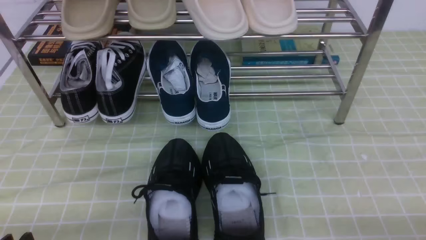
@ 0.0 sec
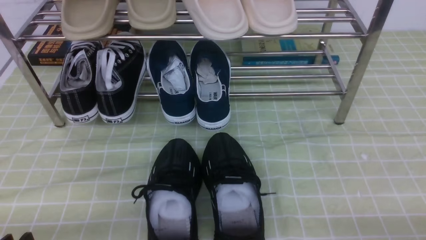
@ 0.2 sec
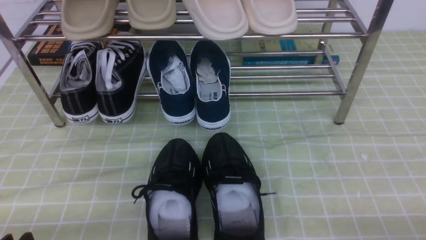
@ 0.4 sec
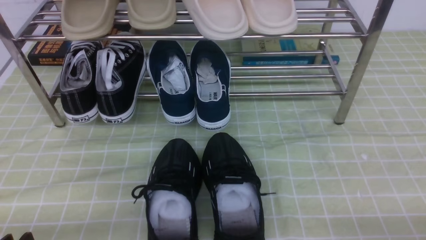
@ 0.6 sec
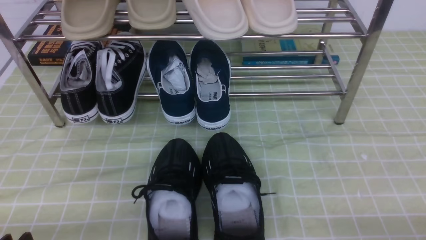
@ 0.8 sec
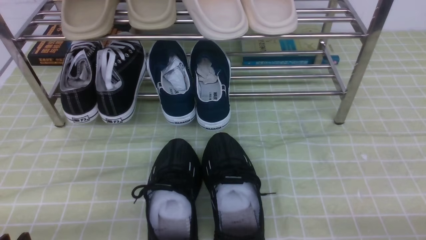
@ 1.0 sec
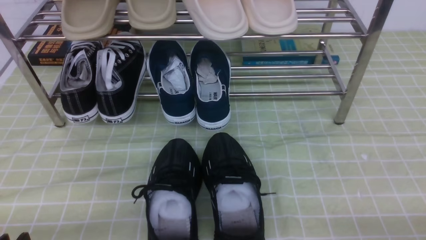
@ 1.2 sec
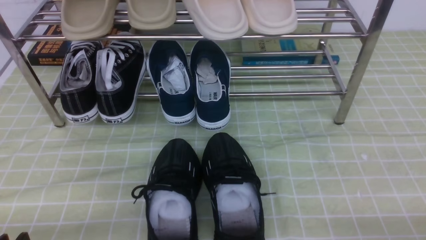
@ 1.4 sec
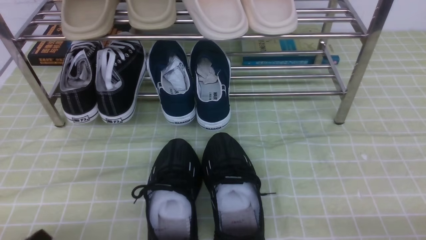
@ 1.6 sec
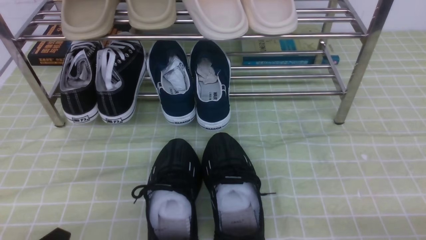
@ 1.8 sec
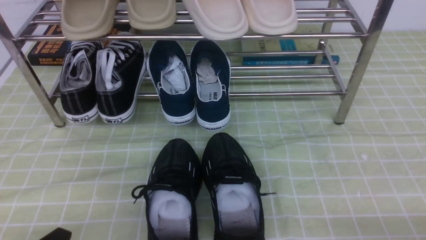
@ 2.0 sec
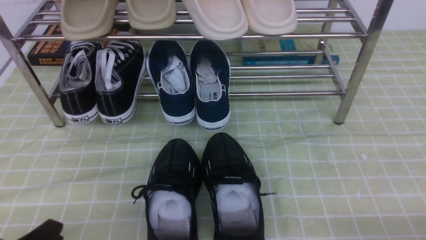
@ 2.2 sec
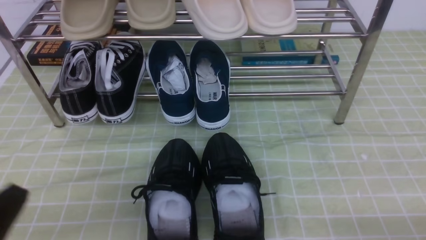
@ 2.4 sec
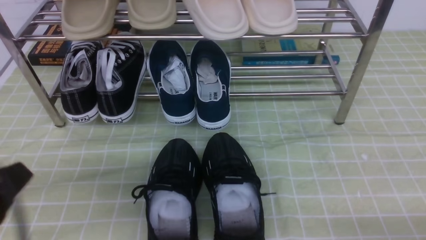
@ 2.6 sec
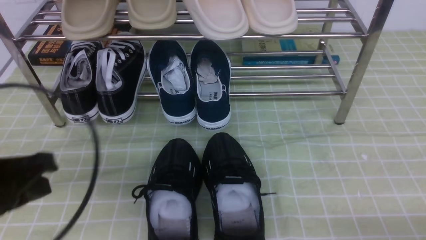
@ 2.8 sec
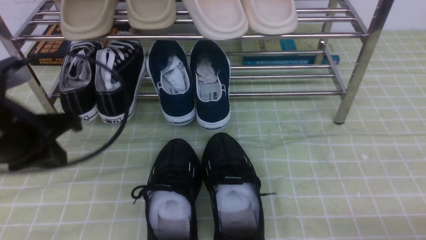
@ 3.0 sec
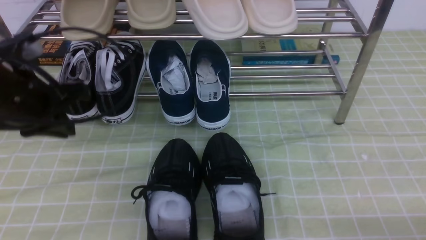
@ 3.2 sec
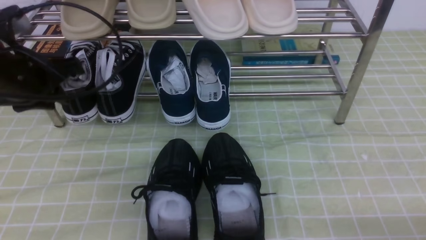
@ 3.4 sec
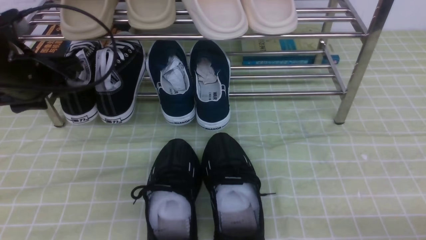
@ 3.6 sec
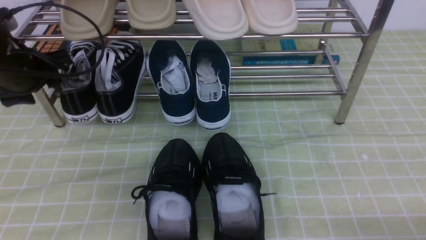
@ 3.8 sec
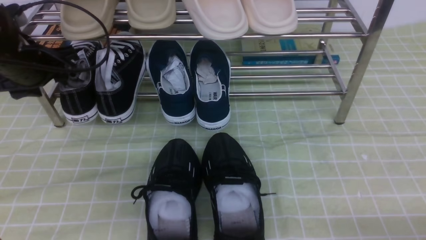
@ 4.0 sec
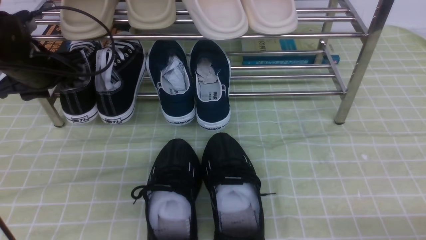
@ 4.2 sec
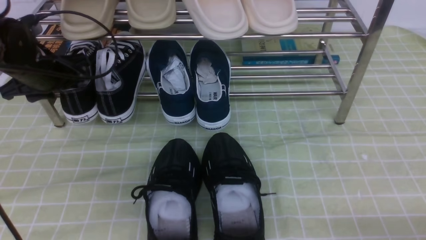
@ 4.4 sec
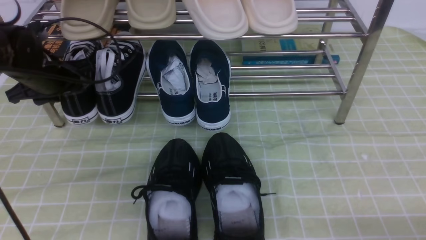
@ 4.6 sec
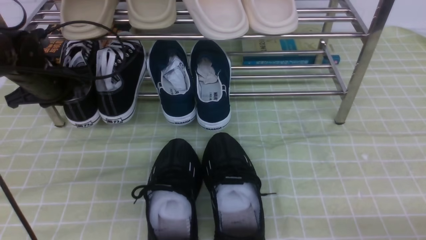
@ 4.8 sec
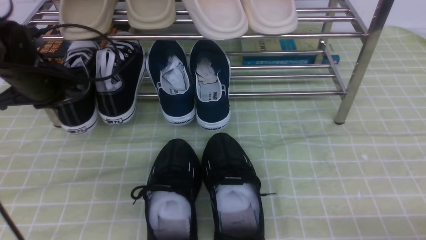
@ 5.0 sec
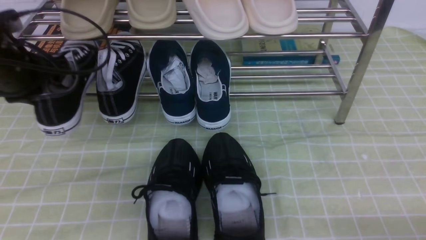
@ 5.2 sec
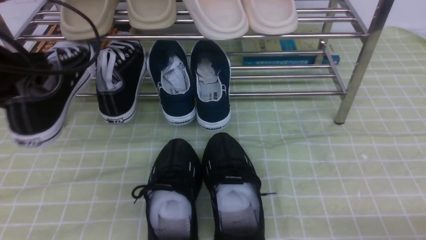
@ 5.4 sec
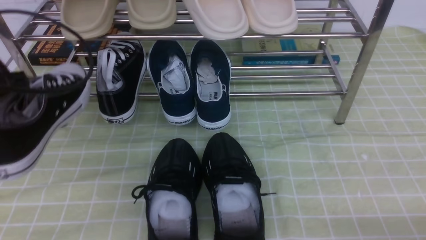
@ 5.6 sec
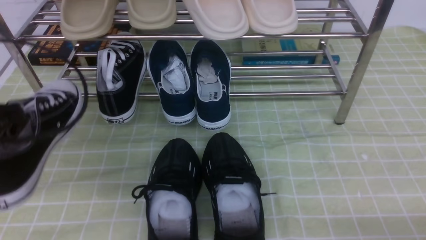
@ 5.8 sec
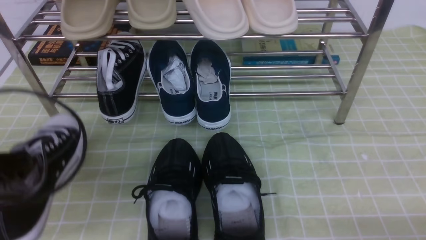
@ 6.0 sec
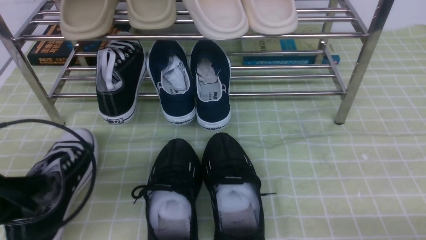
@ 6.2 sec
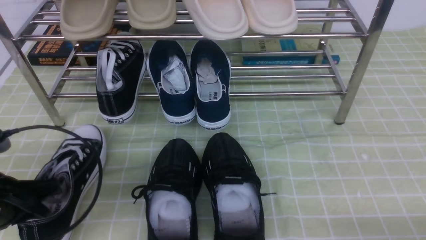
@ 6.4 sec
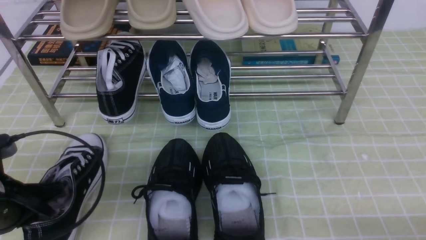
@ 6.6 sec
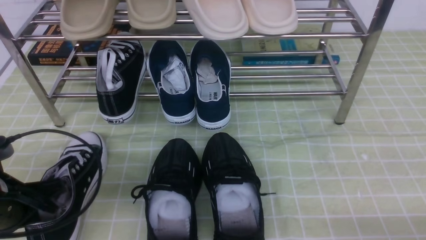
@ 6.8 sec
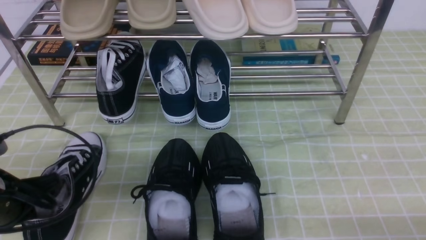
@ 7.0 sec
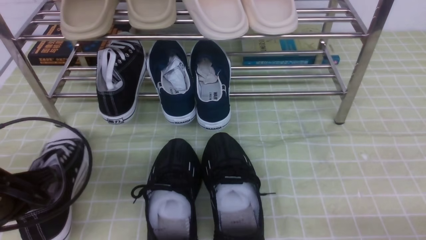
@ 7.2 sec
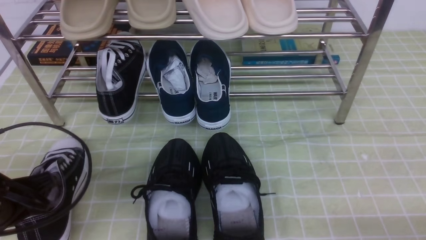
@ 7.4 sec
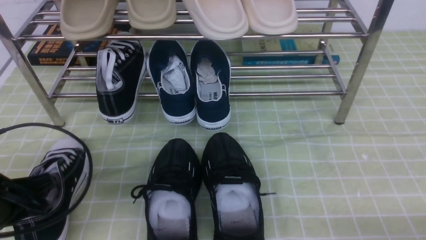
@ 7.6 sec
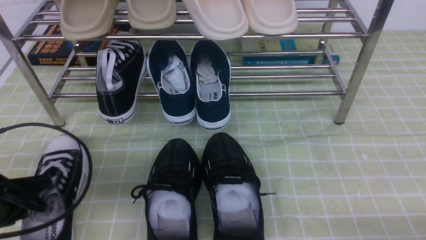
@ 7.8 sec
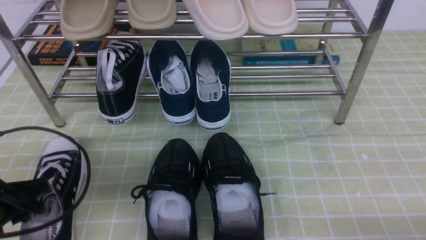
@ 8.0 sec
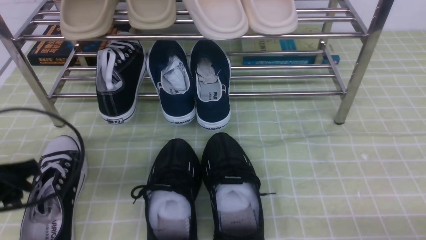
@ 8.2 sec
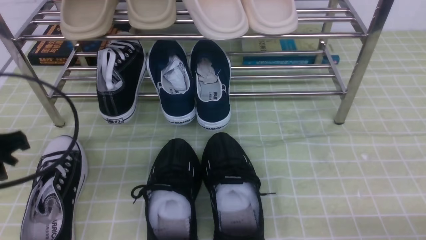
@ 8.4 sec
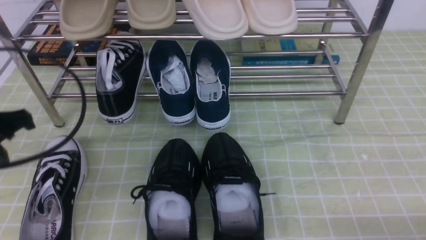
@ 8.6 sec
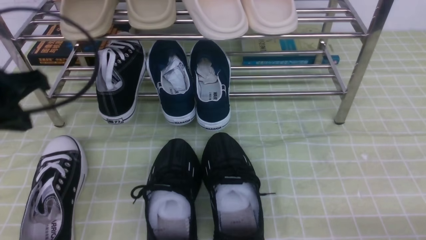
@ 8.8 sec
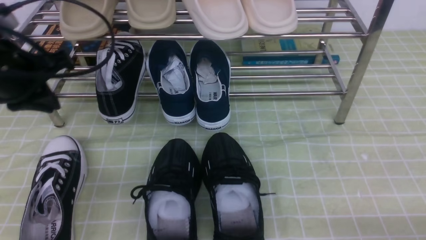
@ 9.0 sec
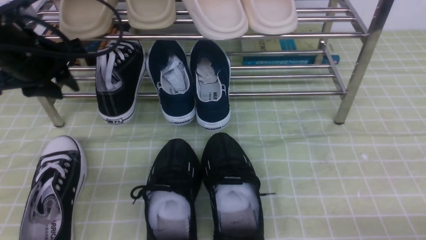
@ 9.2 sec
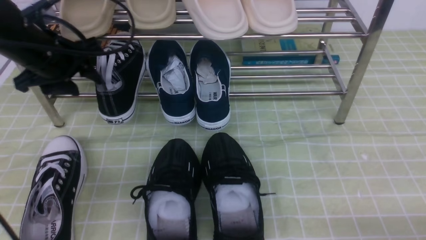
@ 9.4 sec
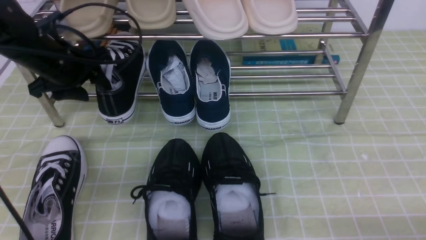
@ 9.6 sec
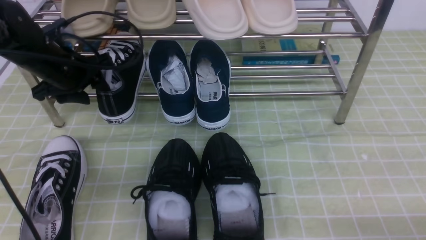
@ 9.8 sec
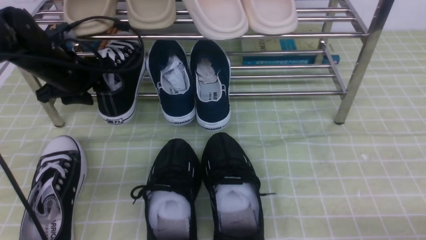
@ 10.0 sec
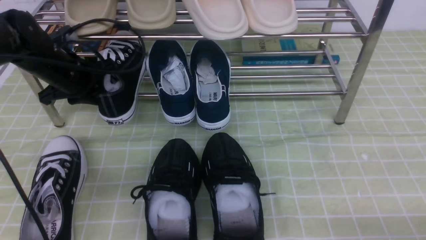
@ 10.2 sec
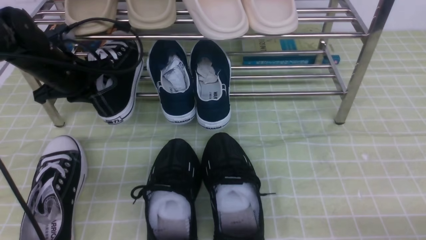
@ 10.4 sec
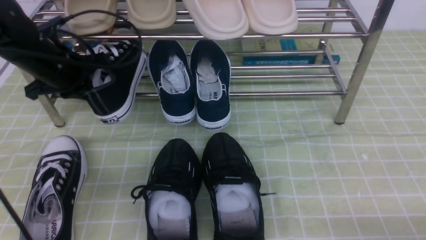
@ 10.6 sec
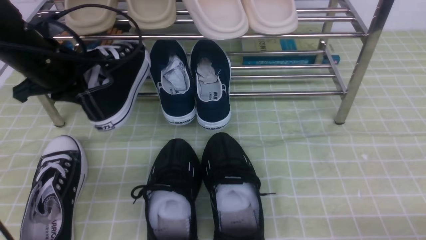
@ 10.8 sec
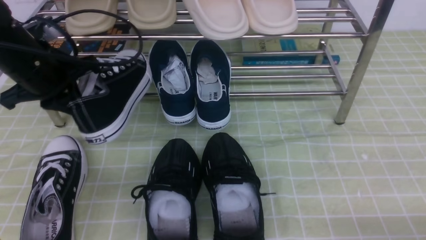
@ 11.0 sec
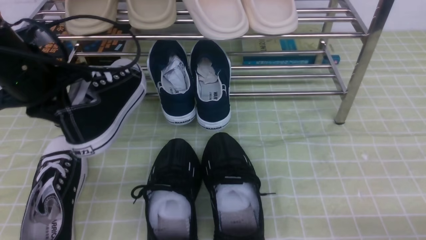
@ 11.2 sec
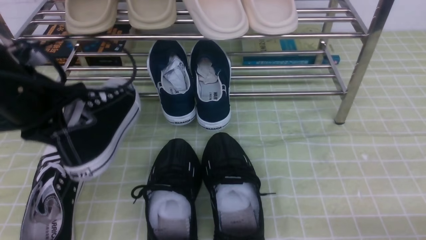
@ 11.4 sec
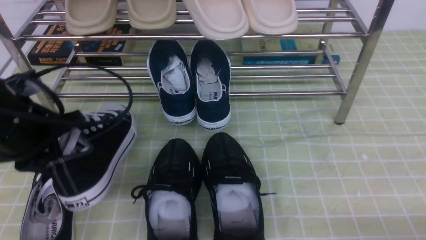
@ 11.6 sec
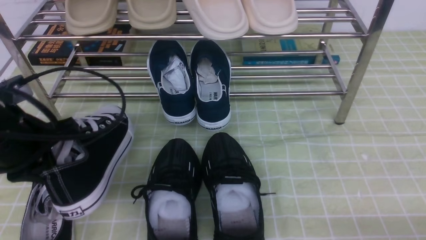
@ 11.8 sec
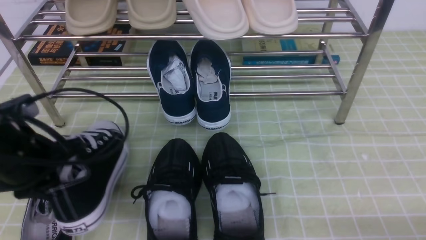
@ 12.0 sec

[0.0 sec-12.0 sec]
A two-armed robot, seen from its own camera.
Step, 0.0 sec to 4.6 sec: use the left arm to clamp a shoe on the left side of the shoe rack.
Step, 5.0 sec to 7.8 sec: Use your left arm to remove the clamped shoe from the shoe rack and put it down.
Step, 8.2 sec to 10.2 sec: use the left arm to clamp a shoe on the left side of the shoe rack.
1.6 sec to 3.0 sec: The left gripper goes approximately 20 cm forward and upward, and closes up.
3.0 sec to 4.4 sec: The left gripper heads forward, covering about 15 cm, and opens up.
4.4 sec to 6.0 sec: The left gripper travels backward by approximately 20 cm, and closes up.
6.0 sec to 7.6 sec: The left gripper goes roughly 5 cm downward.
7.6 sec to 9.0 sec: The left gripper is displaced upward and forward by roughly 15 cm, and opens and closes again.
9.0 sec to 10.4 sec: The left gripper travels forward and downward by about 15 cm, and opens and closes again.
10.4 sec to 12.0 sec: The left gripper moves backward, roughly 15 cm.

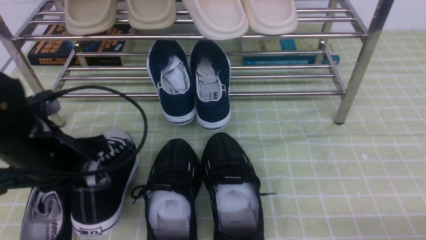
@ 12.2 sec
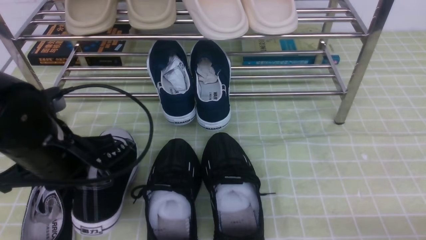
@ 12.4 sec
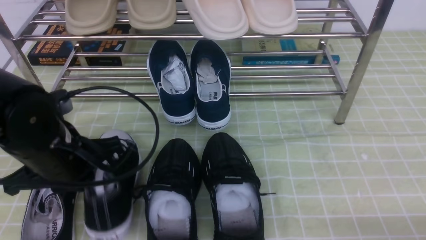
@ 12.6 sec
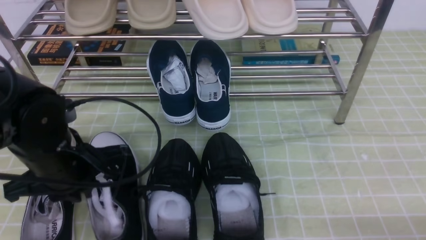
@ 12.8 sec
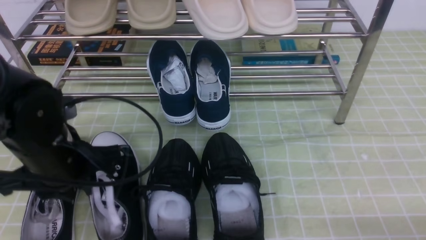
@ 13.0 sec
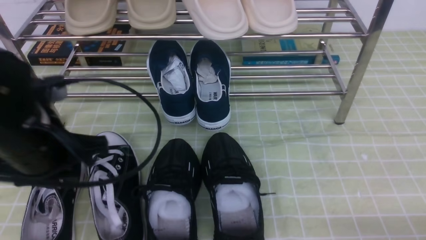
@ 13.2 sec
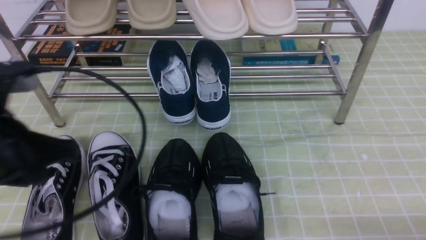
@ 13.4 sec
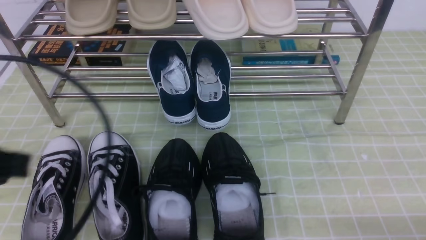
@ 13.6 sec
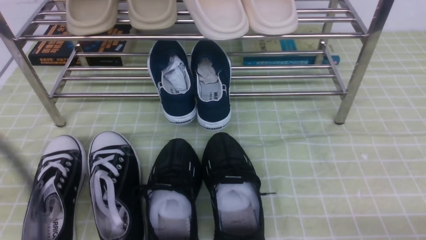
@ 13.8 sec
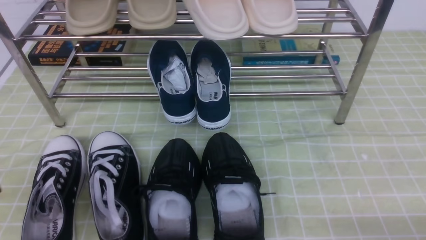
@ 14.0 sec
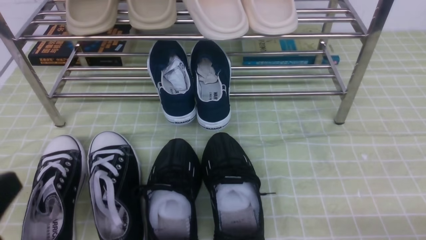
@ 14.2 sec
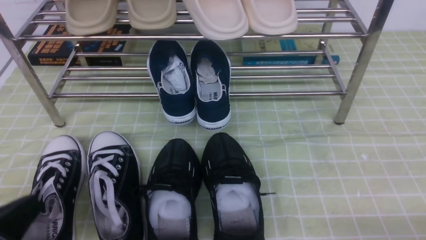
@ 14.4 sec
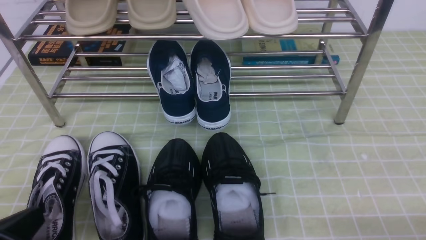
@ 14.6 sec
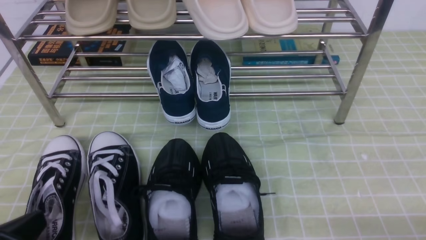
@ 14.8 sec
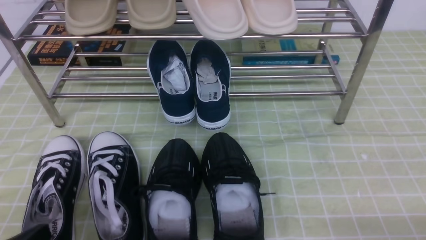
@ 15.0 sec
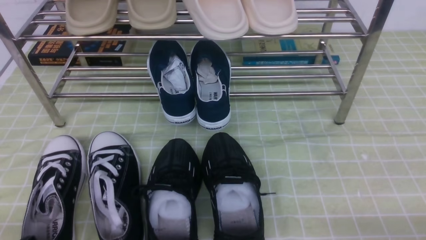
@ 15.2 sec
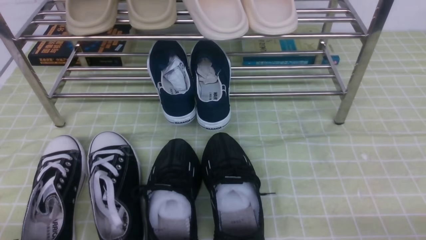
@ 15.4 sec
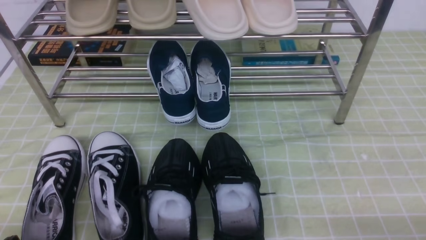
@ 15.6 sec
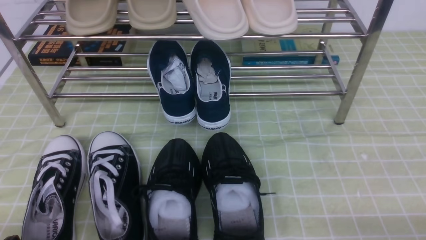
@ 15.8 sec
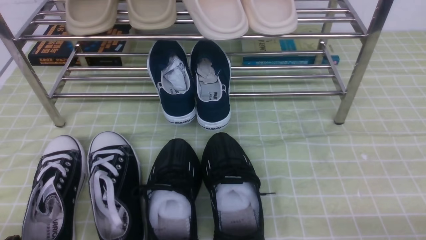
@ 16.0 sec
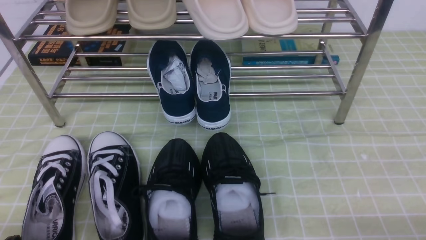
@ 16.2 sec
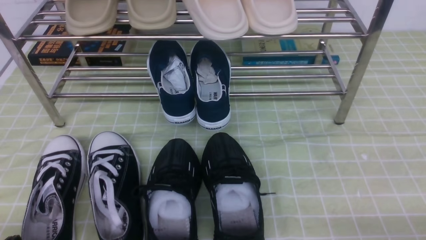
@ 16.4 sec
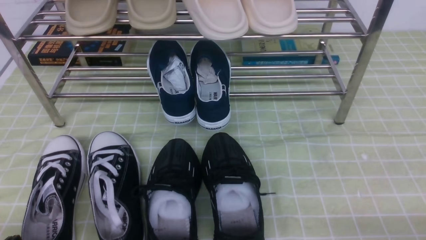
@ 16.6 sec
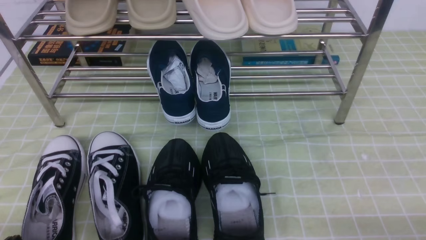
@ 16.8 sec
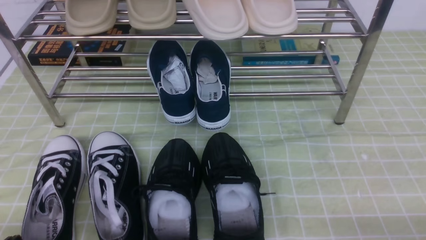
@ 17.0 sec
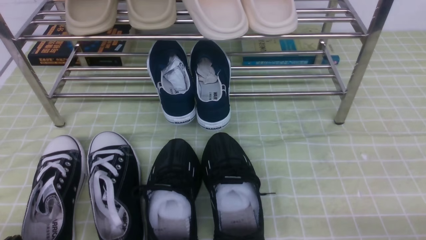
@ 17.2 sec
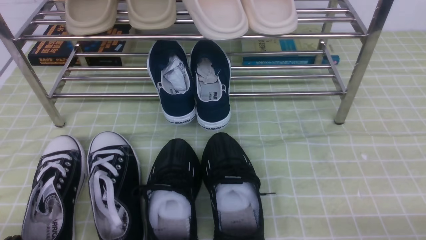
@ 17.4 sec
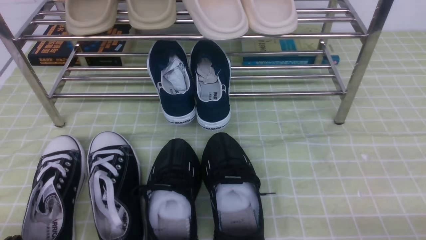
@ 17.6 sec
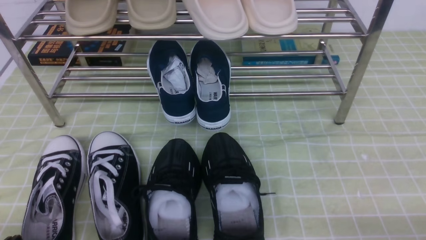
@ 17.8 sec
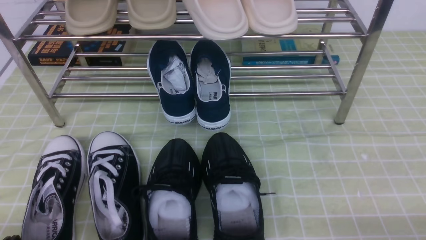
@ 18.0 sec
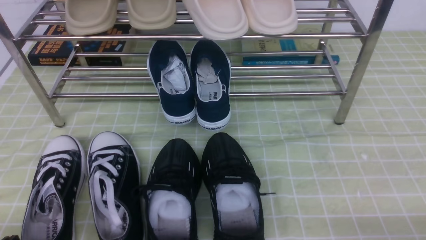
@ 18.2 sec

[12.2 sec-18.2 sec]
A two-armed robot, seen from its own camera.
12.2 sec to 13.8 sec: The left gripper heads backward and upward, covering about 20 cm, and opens and closes again.
13.8 sec to 15.2 sec: The left gripper is displaced downward by about 15 cm.
16.6 sec to 18.2 sec: Both grippers stay about where they are.
